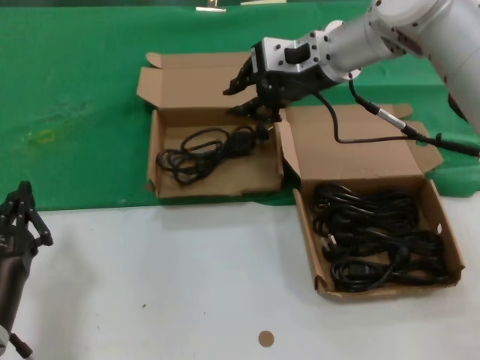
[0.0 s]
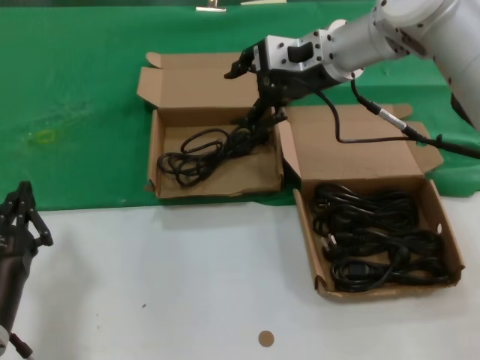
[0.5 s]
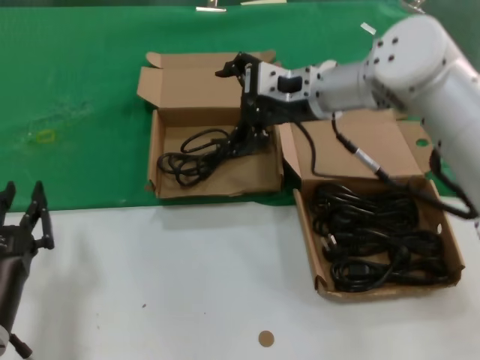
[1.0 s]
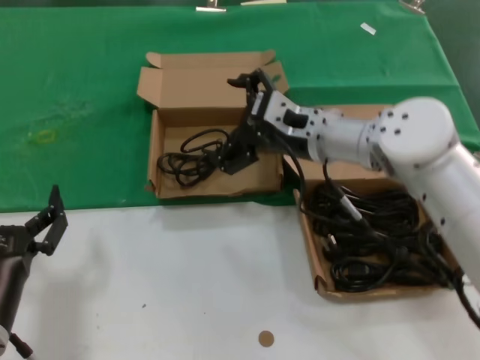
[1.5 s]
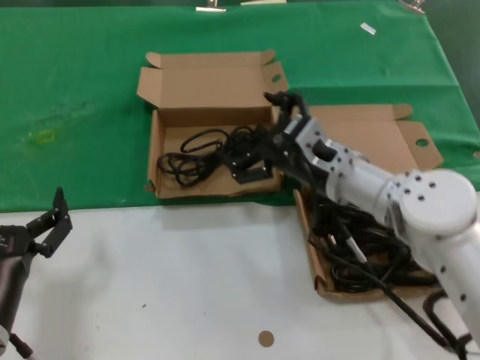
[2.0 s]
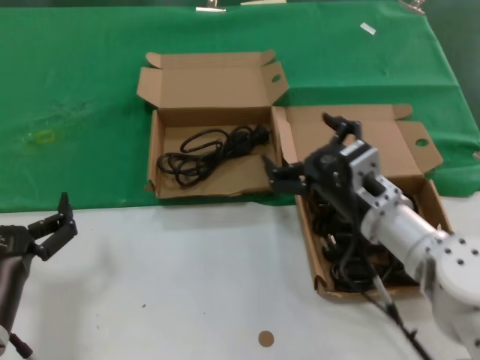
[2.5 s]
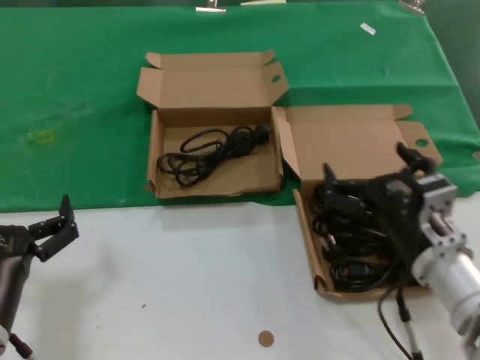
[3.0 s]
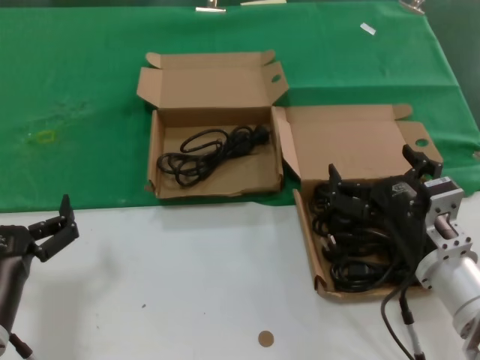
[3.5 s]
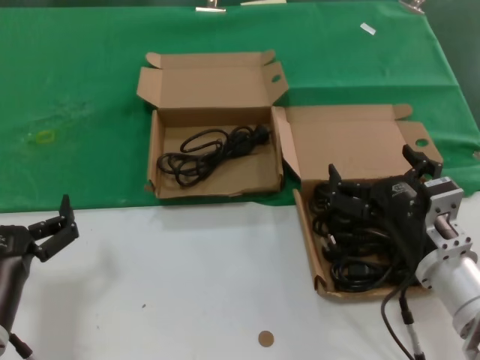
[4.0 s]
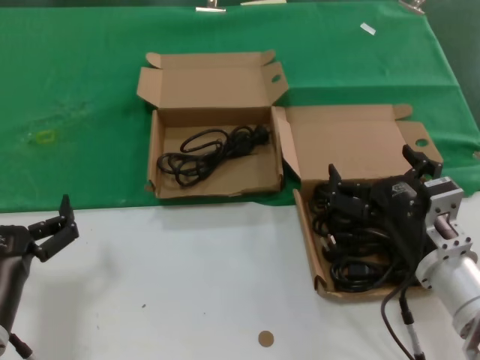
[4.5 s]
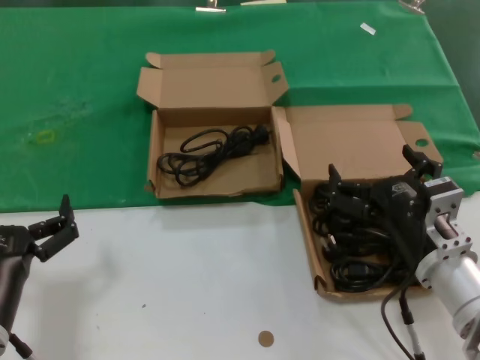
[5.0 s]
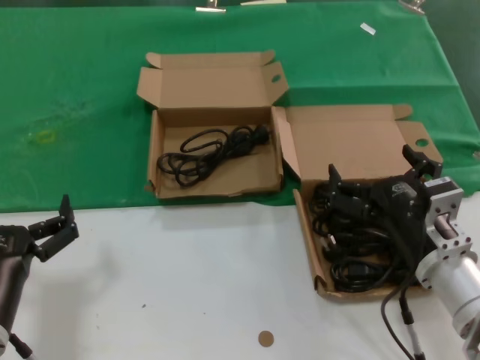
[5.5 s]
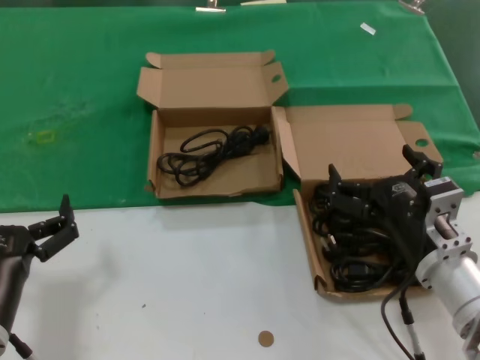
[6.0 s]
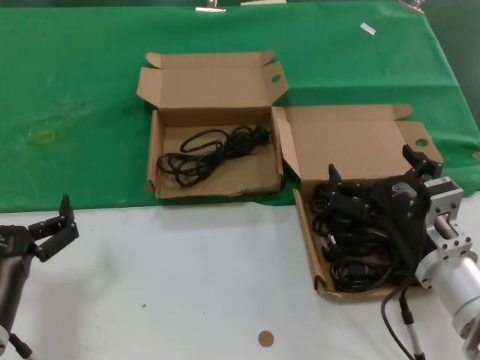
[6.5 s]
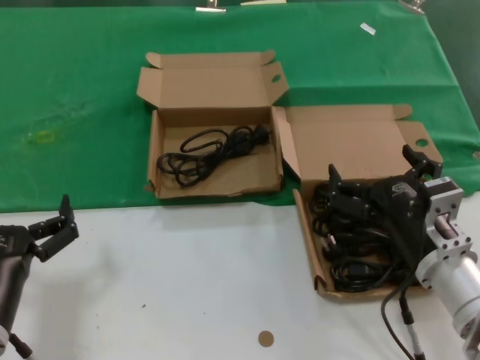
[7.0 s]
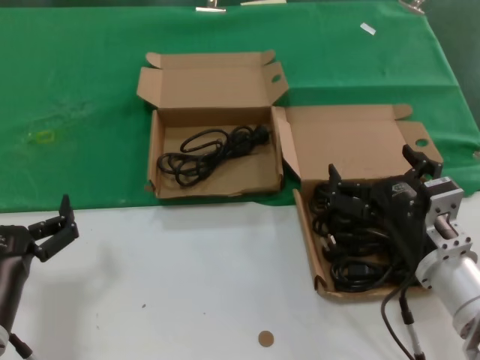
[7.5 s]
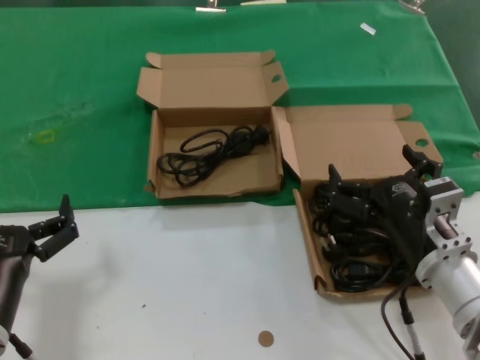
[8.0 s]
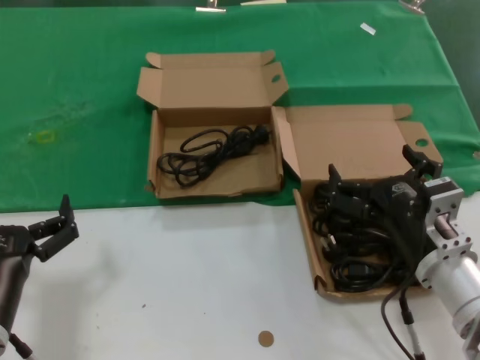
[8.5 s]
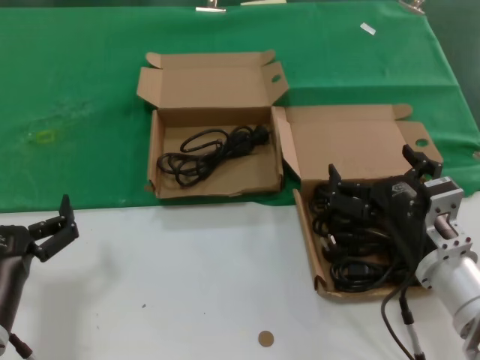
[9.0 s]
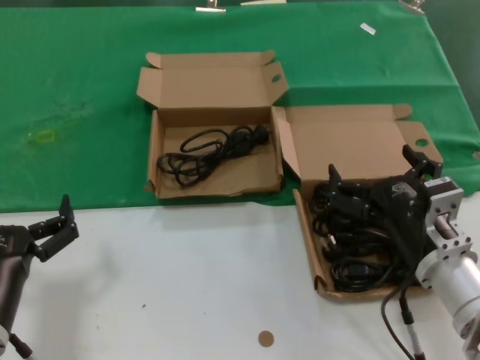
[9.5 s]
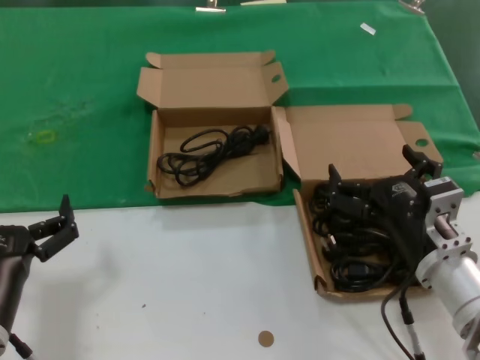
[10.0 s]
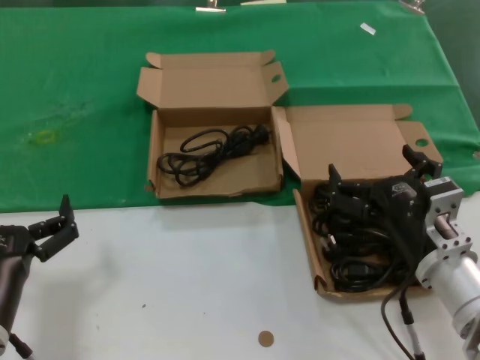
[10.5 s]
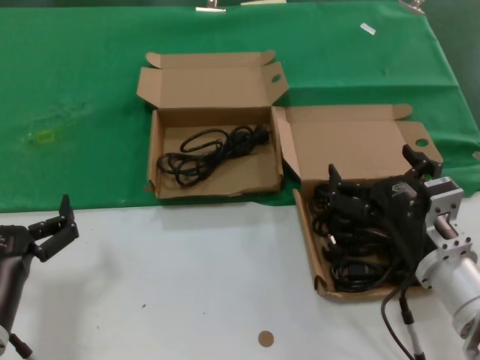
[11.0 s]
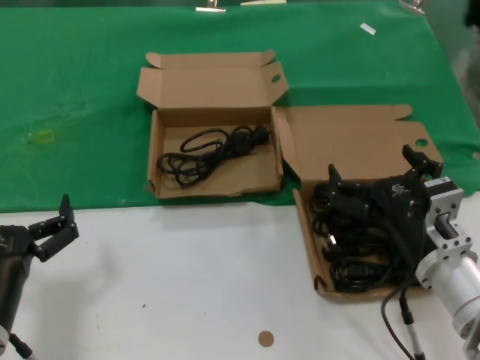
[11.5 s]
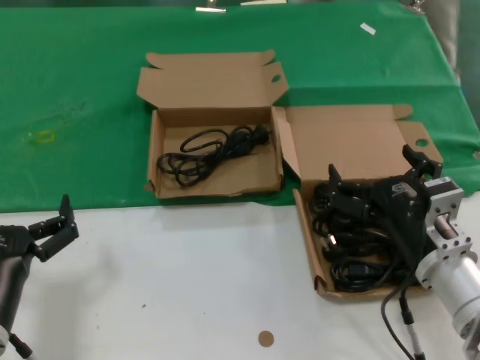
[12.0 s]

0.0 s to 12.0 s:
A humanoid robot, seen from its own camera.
Task of the whole recording: take the parts from the box containing them and put them into an empty box.
0.0 to 2.0 s: The right hand shifts roughly 20 cm downward and backward.
2.0 to 4.0 s: The right hand heads backward, to the right and downward, covering some 15 cm.
4.0 to 12.0 s: The two hands keep their place.

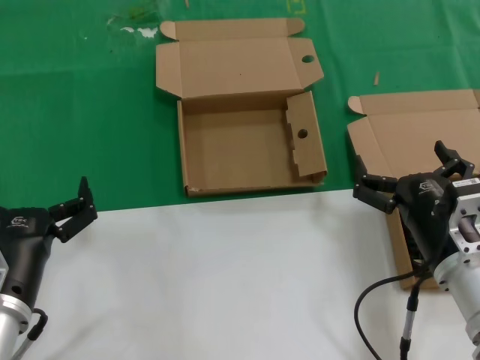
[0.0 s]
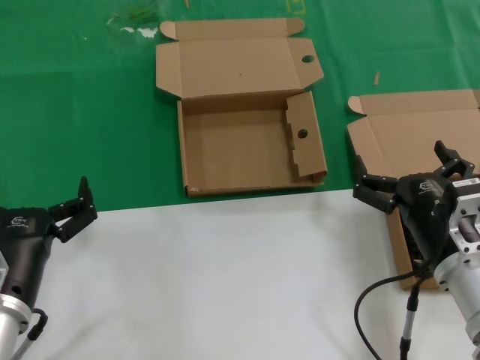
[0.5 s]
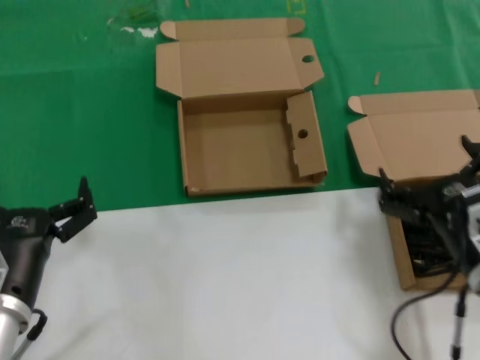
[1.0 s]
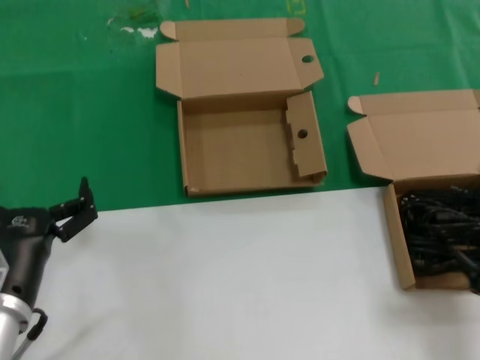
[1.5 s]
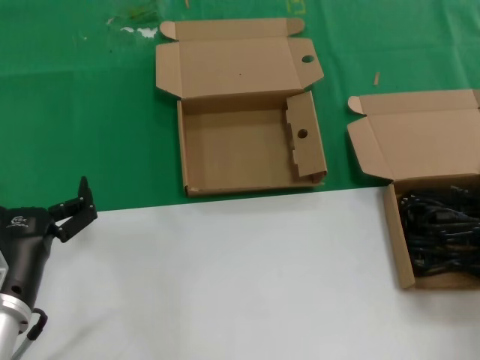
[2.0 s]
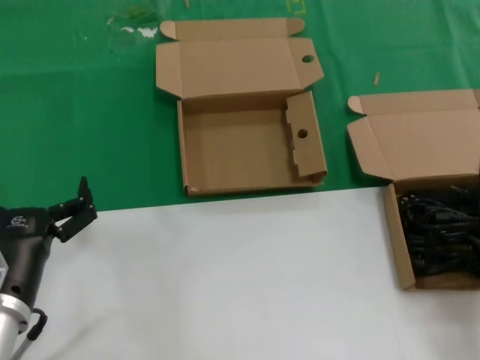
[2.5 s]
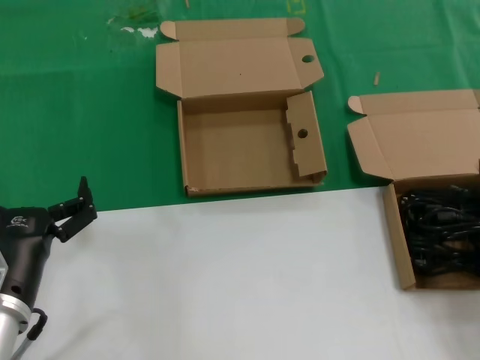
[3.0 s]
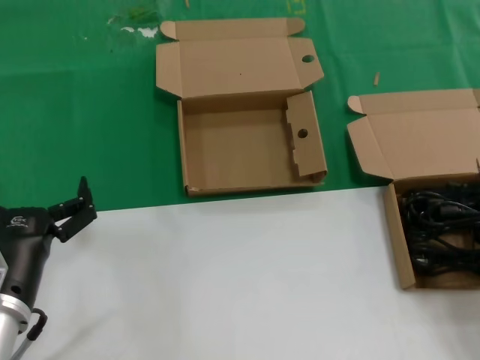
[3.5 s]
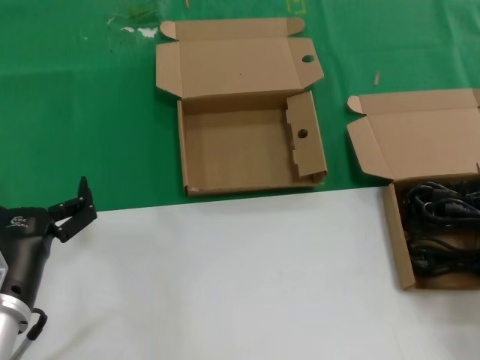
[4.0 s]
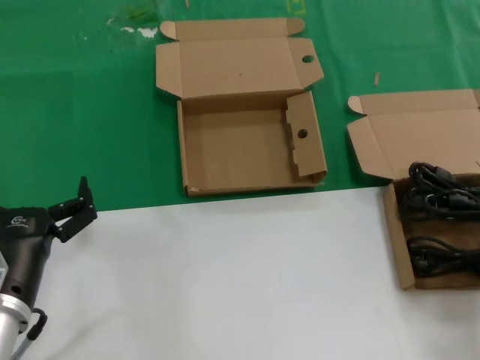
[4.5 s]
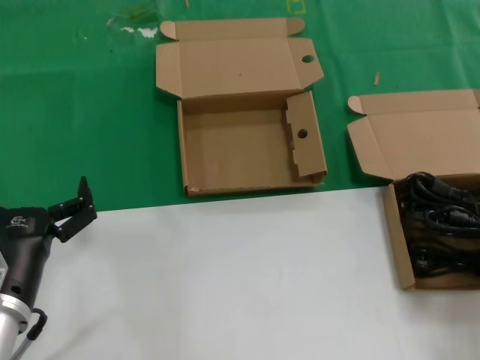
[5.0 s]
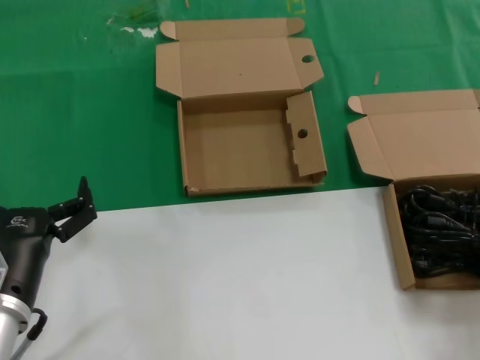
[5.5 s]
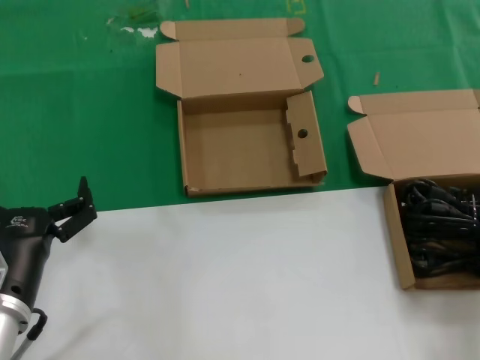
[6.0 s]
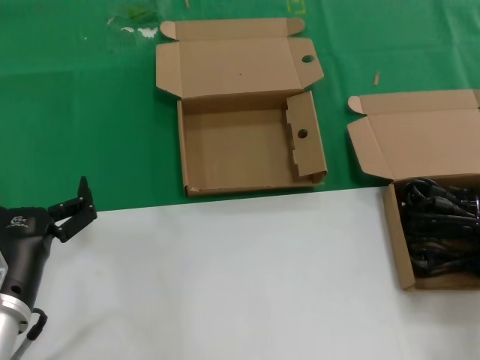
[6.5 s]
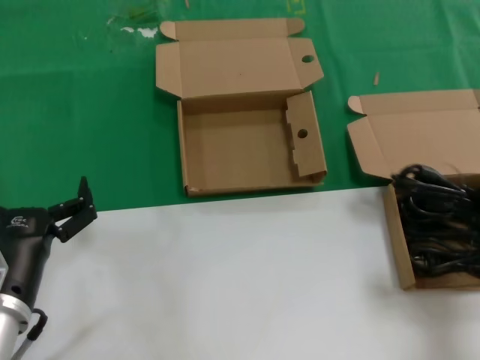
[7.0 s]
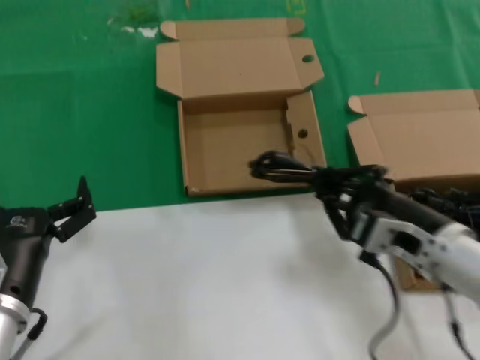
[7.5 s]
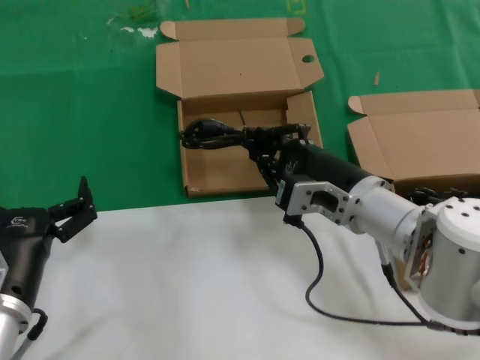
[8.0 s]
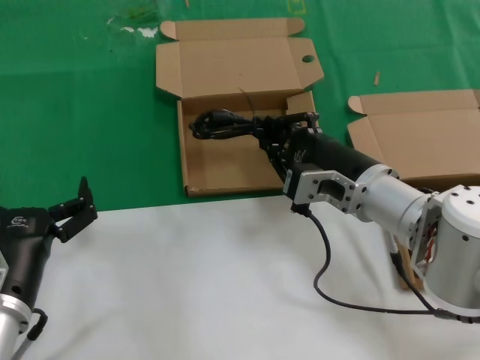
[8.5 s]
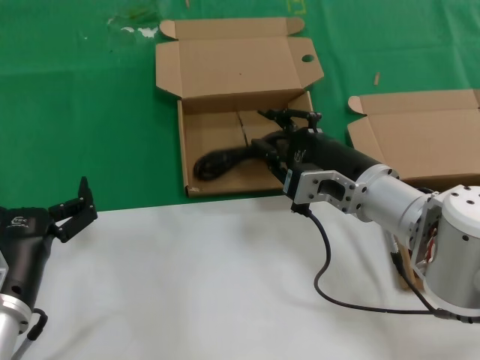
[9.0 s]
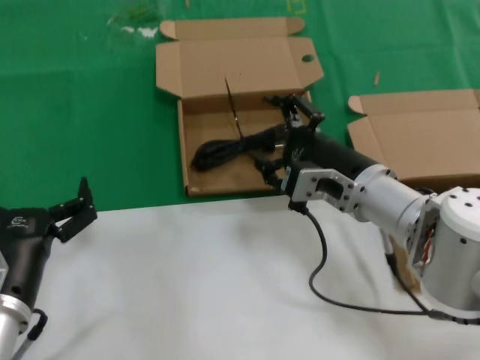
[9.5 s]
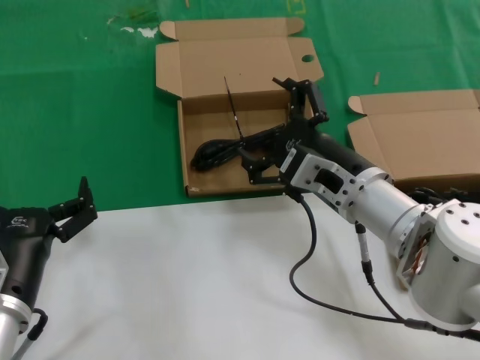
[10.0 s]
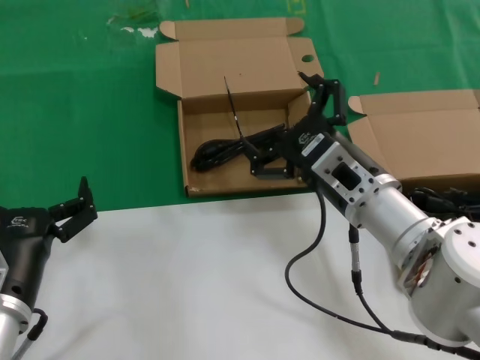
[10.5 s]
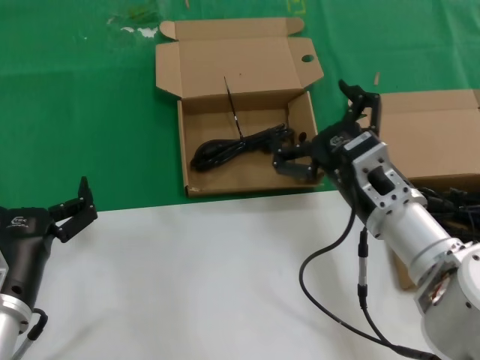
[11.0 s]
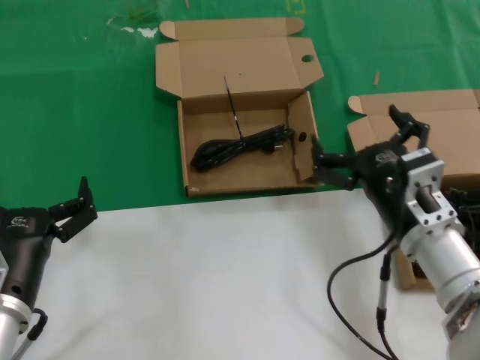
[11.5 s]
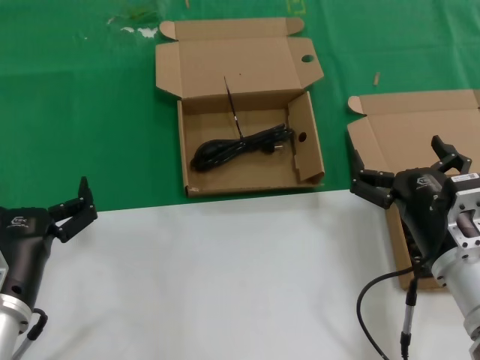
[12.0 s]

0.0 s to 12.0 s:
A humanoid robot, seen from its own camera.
Task of the whole recording: take the parts from the box containing them and put them into an empty box.
Step, 0.0 to 4.5 s: Grasp the data cable.
Step, 5.0 to 10.0 s: Place the data cable in the another box.
0.0 to 2.0 s: The right hand moves to the right, backward and upward, some 20 cm.
2.0 to 4.0 s: The right hand shifts roughly 5 cm forward.
6.0 to 8.0 s: The right hand moves to the left and forward, some 25 cm.
8.0 to 10.0 s: The hands make only small movements.
10.0 to 12.0 s: The right hand shifts about 15 cm backward, to the right and downward.

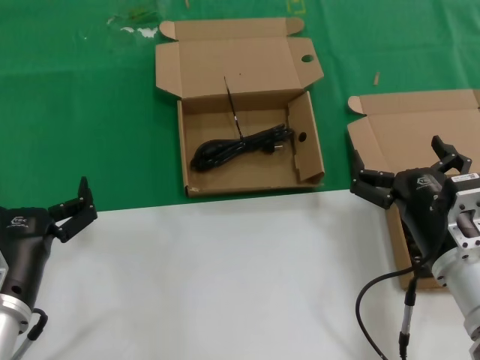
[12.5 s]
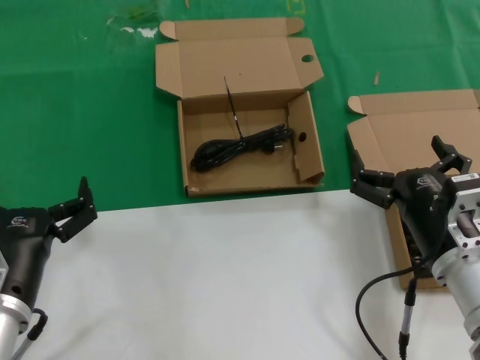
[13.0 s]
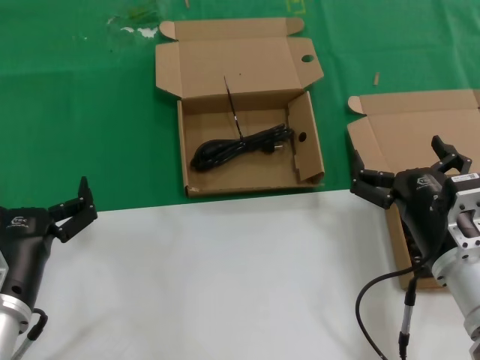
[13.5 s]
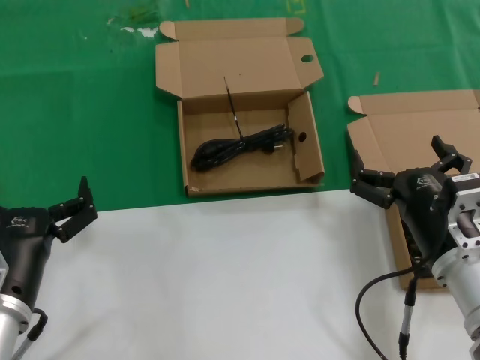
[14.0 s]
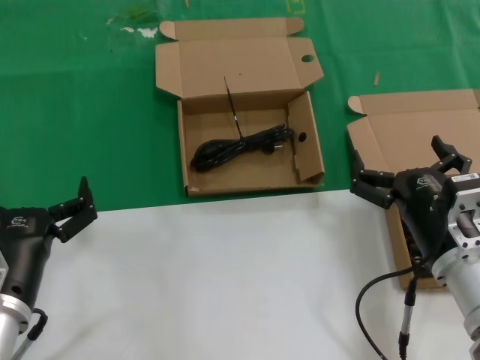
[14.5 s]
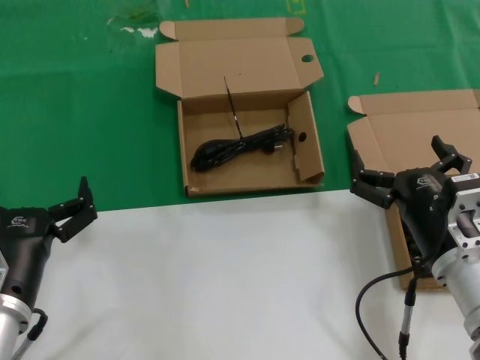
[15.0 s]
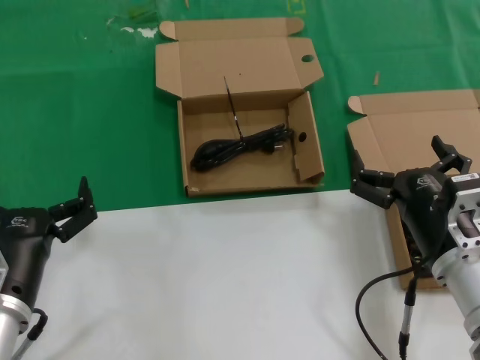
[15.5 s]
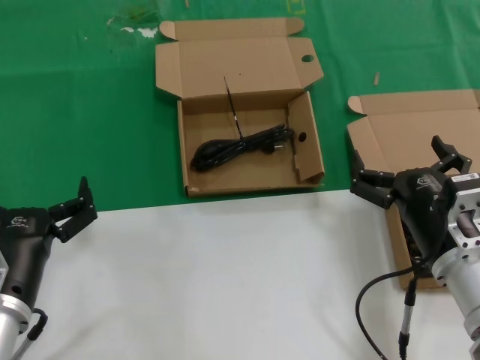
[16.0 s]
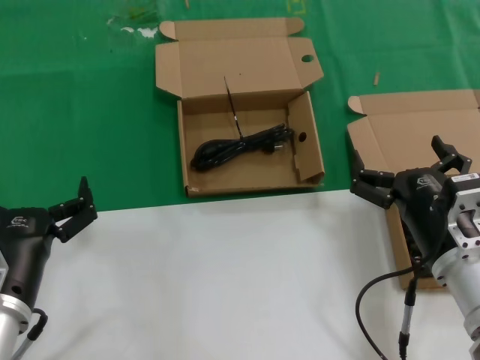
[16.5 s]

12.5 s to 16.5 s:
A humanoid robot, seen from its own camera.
Task of the whole recording: take the parts from the box containing them and put them into an empty box.
12.5 to 16.5 s: Both hands stay put.
